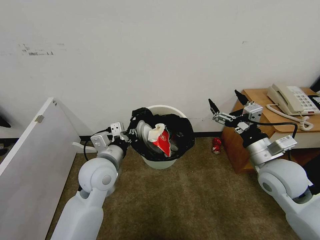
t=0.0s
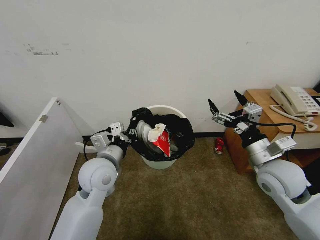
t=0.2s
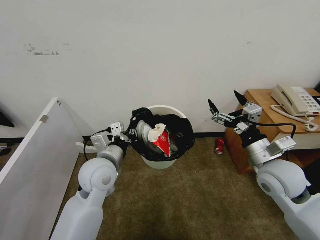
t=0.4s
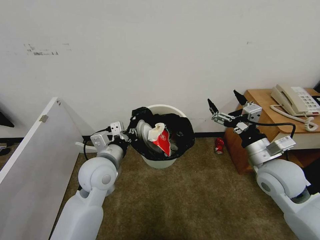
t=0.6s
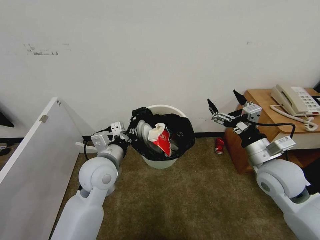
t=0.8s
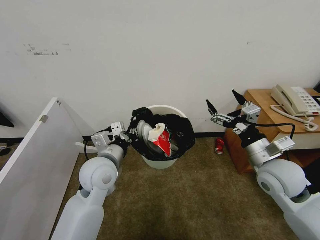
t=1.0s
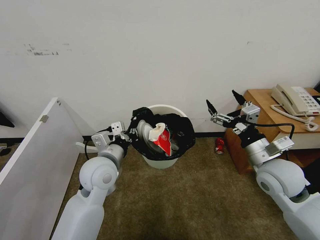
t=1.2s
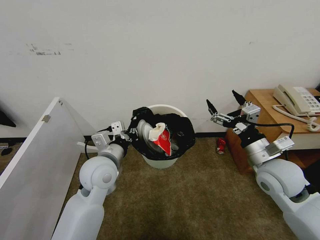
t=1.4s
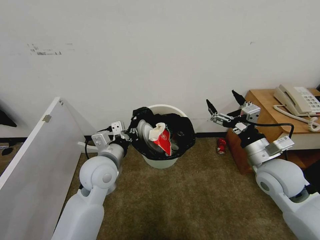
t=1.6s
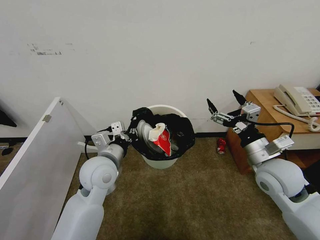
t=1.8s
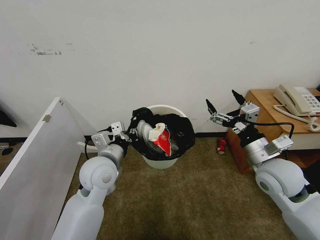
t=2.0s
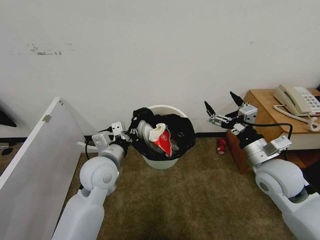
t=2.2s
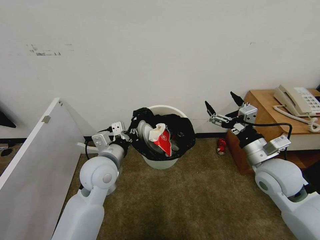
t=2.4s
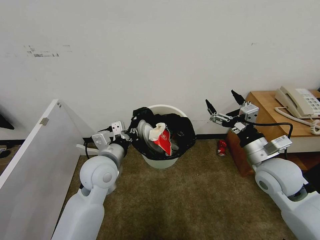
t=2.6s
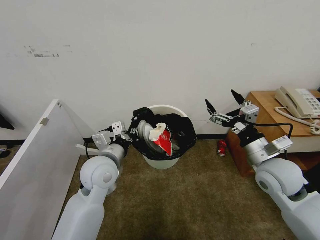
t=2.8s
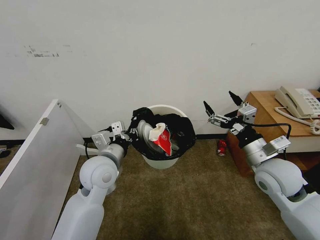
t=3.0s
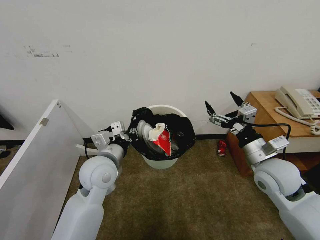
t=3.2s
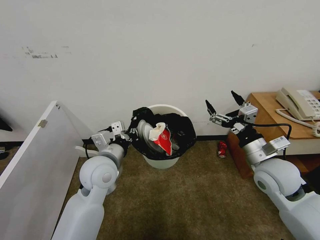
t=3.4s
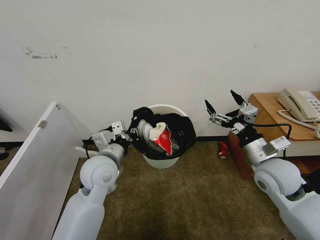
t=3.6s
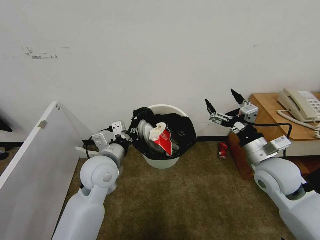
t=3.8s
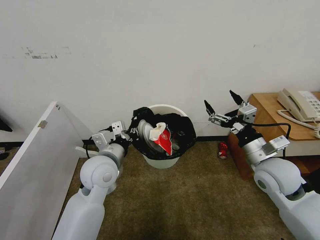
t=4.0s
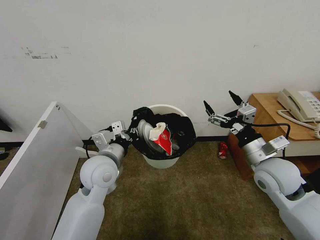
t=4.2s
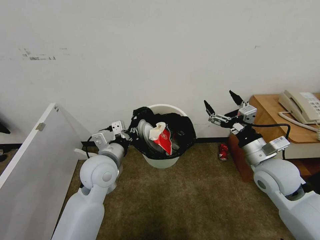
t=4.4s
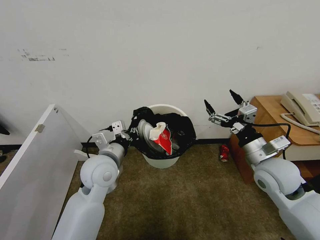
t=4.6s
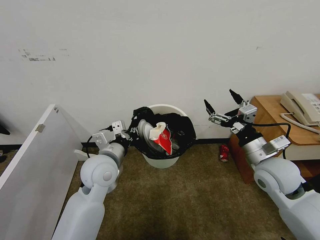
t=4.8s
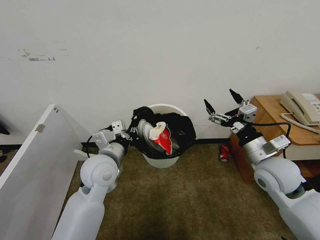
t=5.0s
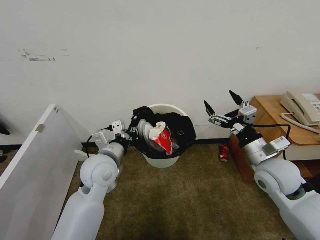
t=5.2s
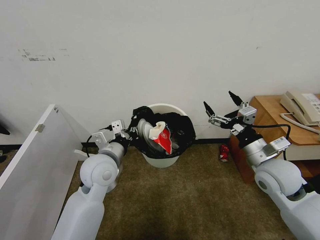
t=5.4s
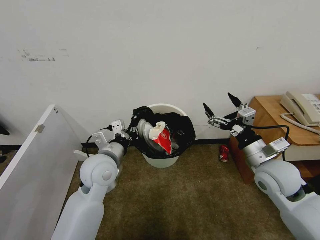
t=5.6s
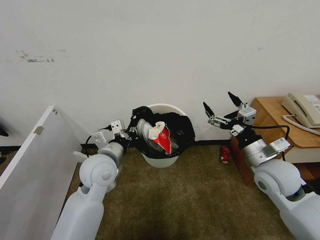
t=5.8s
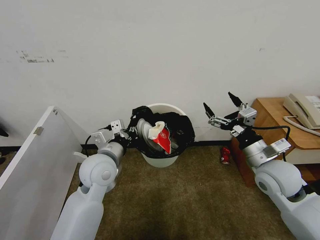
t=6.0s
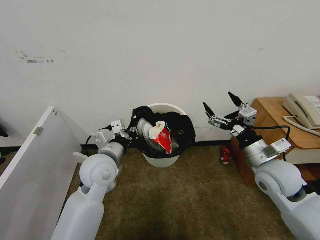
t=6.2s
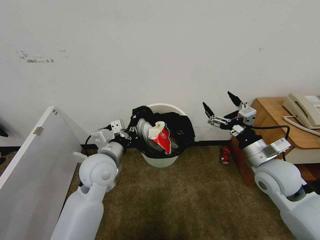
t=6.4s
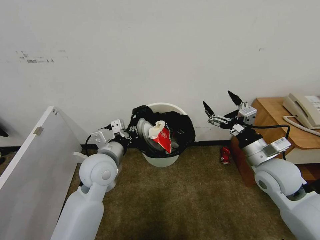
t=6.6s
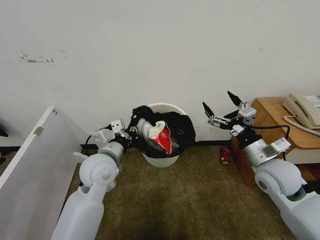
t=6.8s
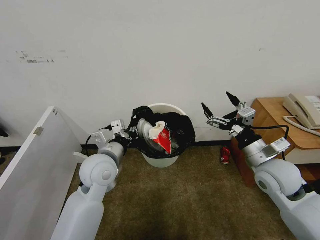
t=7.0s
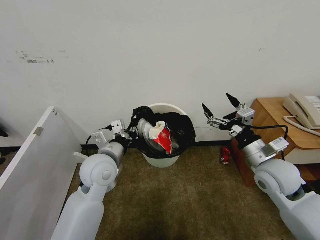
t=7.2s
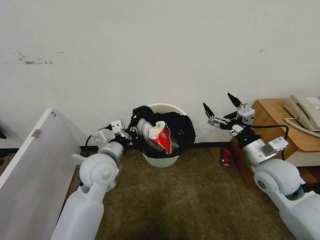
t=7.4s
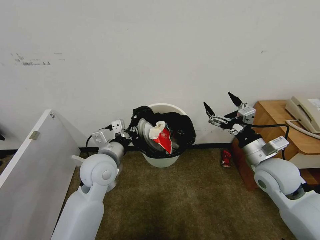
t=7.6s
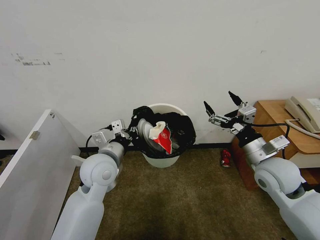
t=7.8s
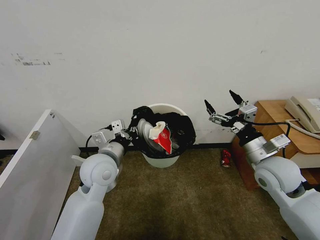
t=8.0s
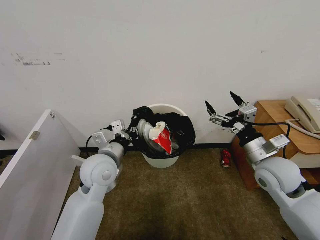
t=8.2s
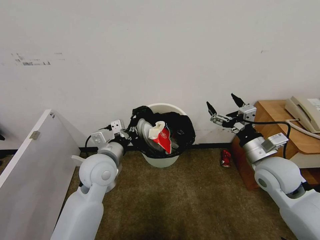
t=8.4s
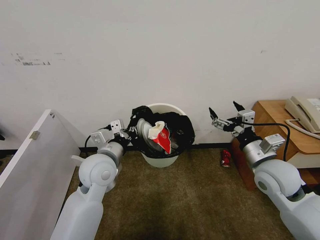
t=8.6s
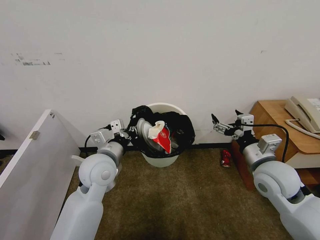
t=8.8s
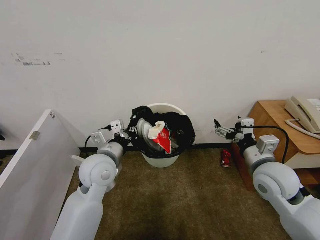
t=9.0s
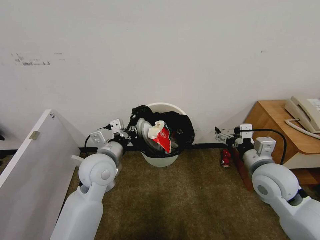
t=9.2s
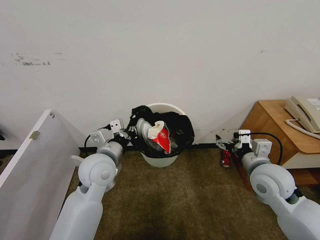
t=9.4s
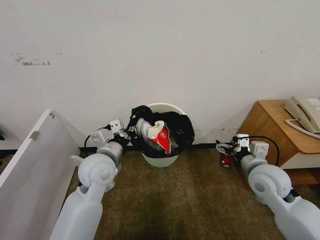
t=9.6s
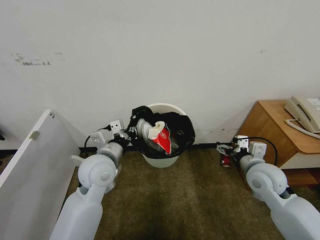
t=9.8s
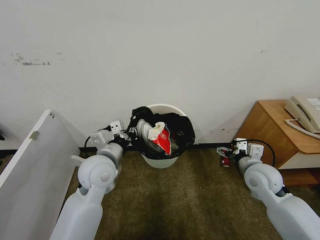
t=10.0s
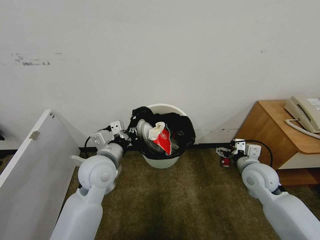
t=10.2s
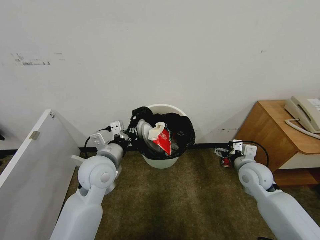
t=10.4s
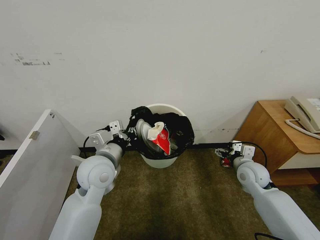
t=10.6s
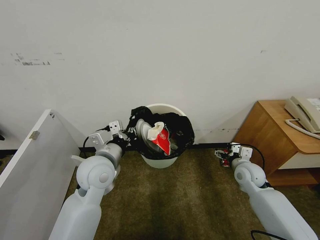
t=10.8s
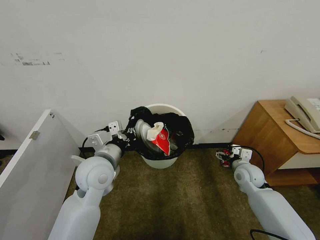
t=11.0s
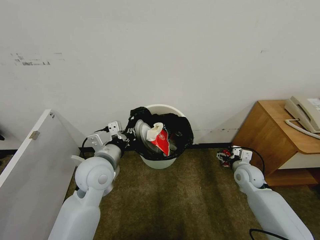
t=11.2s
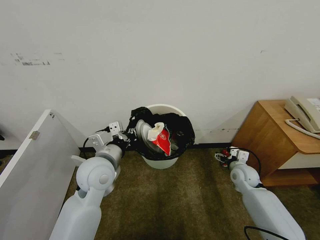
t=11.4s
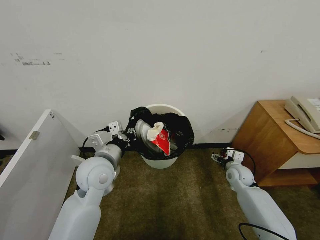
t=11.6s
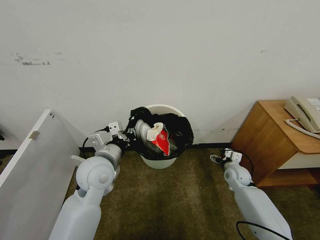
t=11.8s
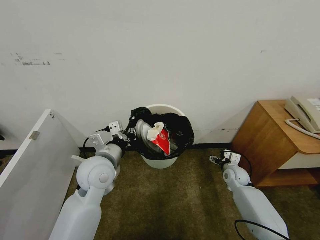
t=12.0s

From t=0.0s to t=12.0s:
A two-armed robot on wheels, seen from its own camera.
Task of the whole recording: Pick up the trash bin, then pick up the garbage from the floor and place it into the trash bin.
From t=0.0s to t=3.0s: The two grippers keep their place.
From t=3.0s to t=7.6s: Both grippers stay about where they are.
From t=9.0s to t=10.4s: The right gripper travels downward and forward by about 10 cm.
From t=10.4s to t=12.0s: The right gripper heads downward and forward, covering approximately 15 cm.

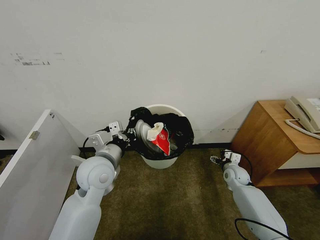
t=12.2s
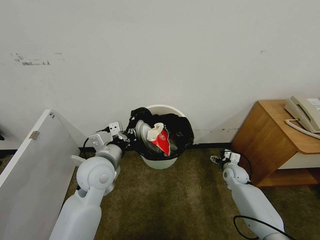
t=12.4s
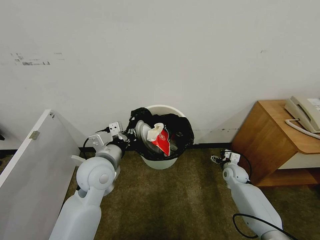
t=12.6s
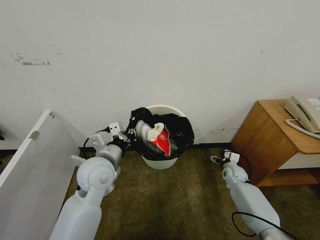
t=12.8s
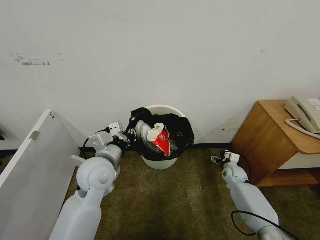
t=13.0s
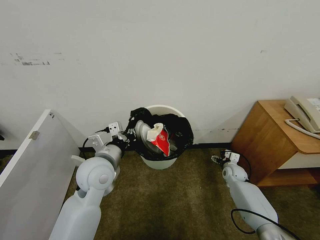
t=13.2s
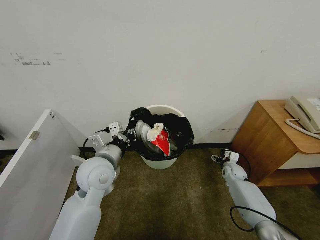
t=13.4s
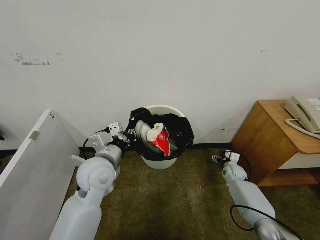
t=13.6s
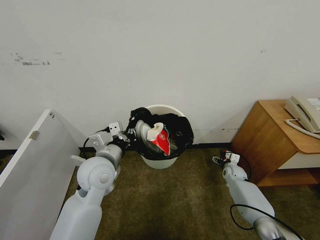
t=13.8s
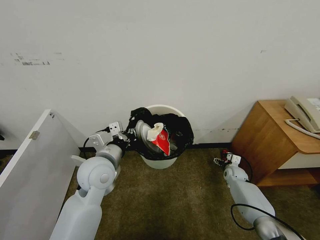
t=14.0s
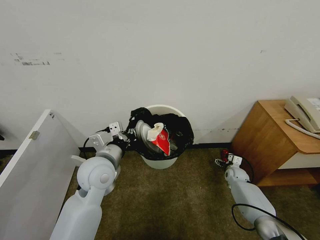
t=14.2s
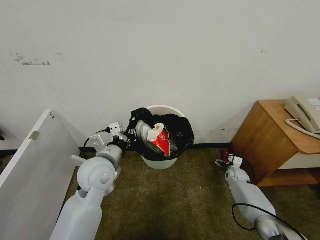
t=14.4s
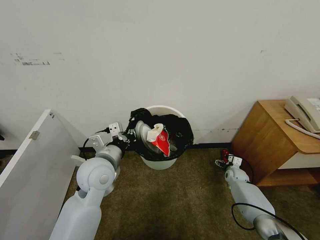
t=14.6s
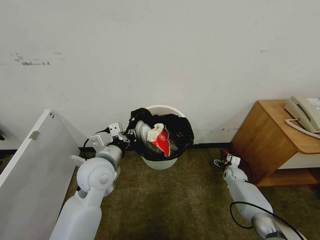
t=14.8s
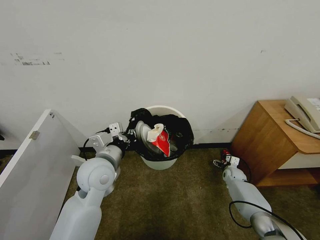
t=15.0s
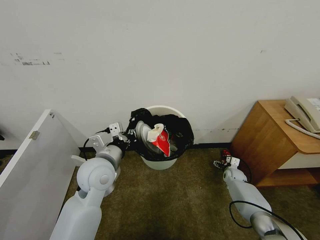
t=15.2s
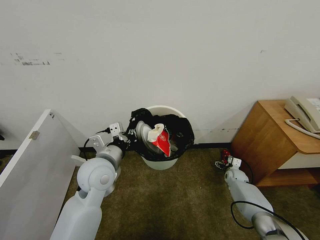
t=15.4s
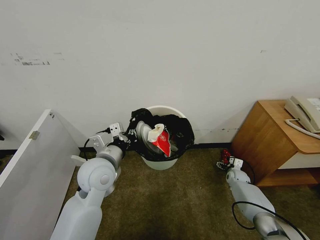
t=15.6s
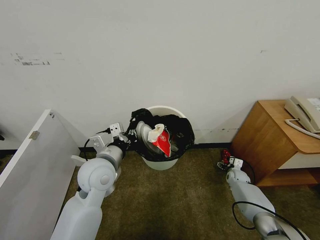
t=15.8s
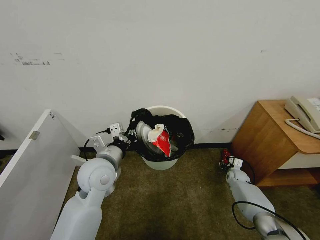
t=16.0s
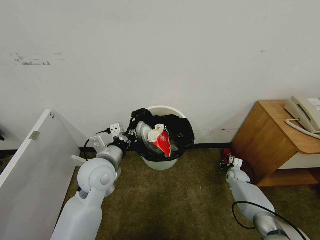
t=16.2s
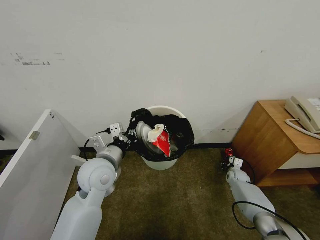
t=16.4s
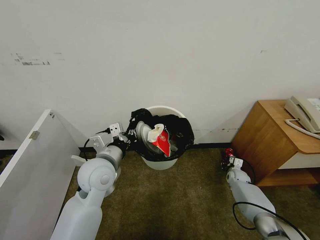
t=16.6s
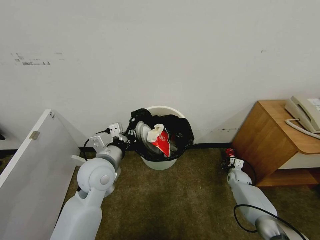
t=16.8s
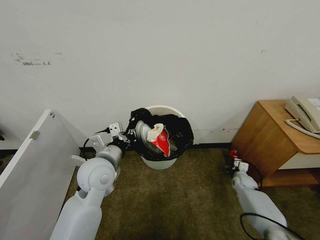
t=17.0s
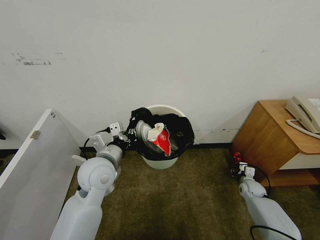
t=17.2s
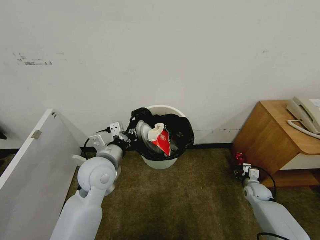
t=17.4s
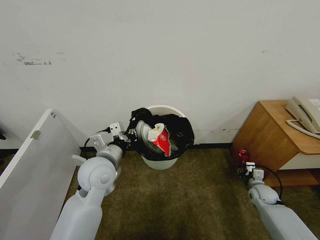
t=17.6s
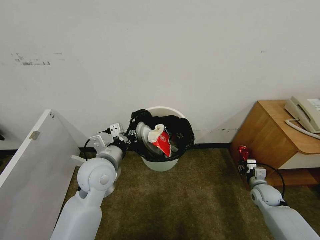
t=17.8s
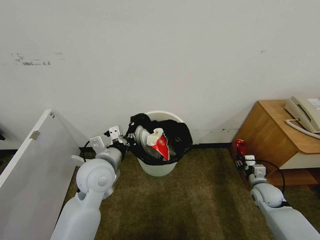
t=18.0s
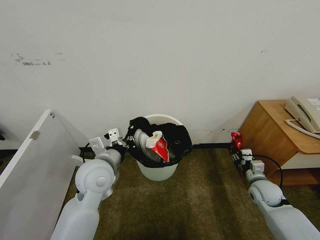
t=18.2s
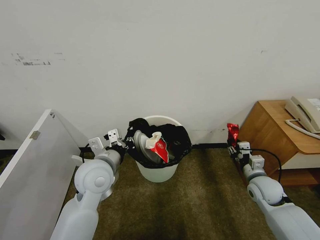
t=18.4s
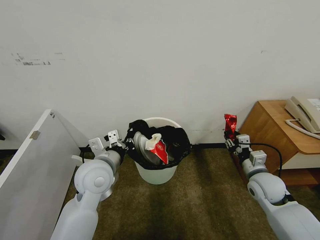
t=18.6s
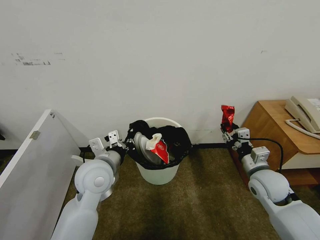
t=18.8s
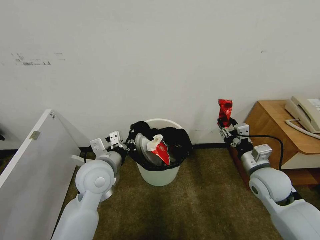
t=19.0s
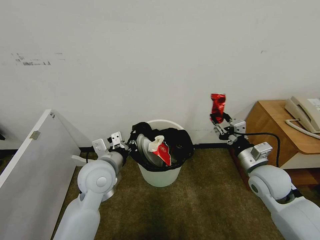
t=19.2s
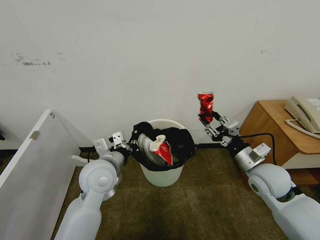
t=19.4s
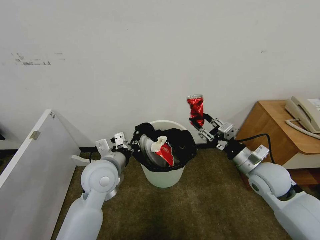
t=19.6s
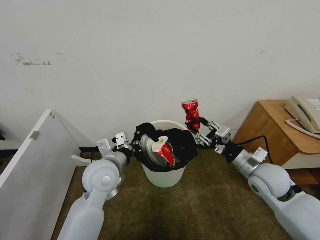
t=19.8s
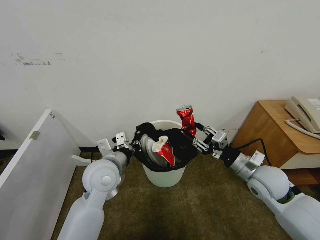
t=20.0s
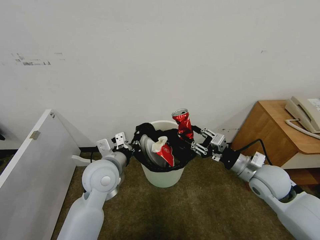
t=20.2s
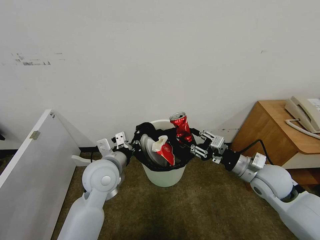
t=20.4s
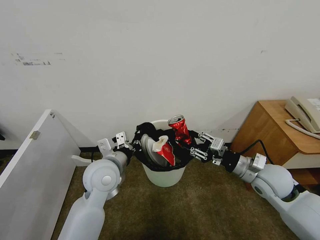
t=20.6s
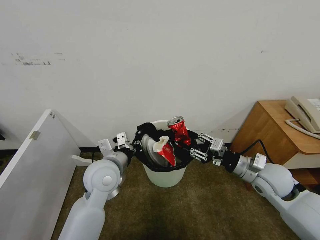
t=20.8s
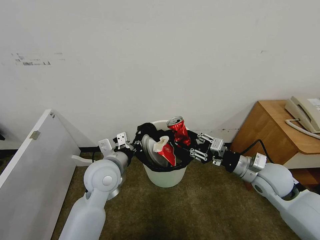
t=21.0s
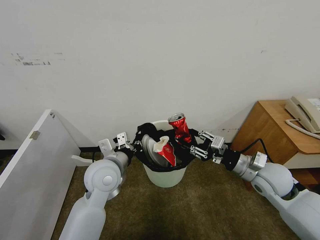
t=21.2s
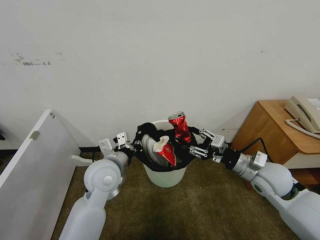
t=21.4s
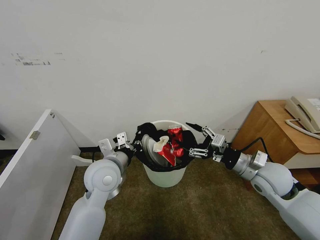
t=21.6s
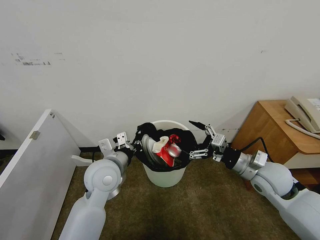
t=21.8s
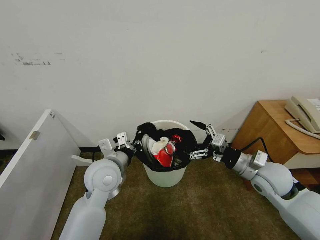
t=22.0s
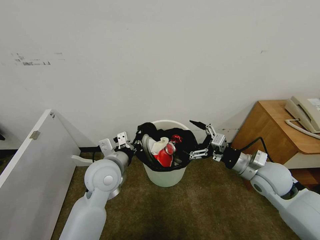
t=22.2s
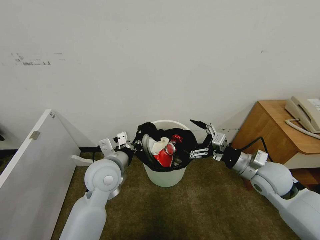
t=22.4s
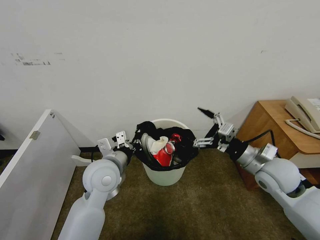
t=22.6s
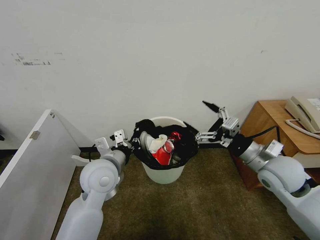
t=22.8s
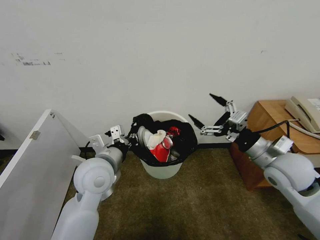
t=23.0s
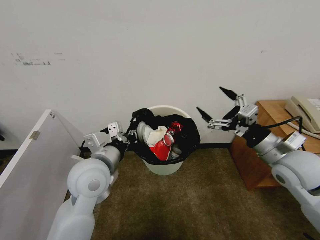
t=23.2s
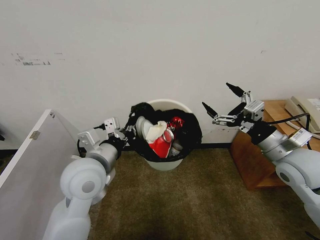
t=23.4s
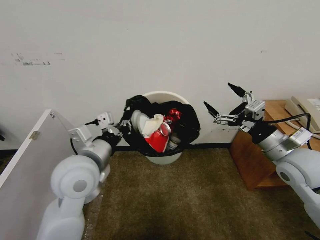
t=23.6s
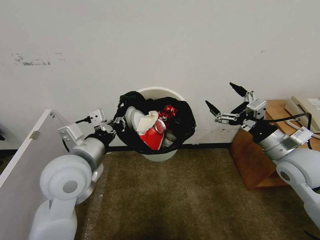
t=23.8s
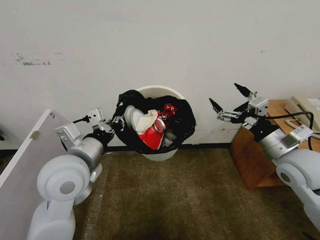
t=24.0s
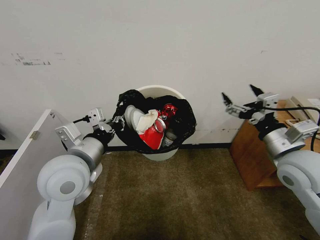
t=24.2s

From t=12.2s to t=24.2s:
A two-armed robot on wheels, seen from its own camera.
Task of the whole recording: Pick up the trash bin, then pick up the garbage from the floor and place it into the trash bin.
From t=12.2s to t=13.8s: The right gripper changes place by approximately 5 cm.
From t=13.8s to t=15.2s: The grippers make only small movements.
From t=15.2s to t=16.6s: The right gripper closes.
From t=16.6s to t=18.2s: The right gripper travels upward and backward by about 20 cm.
From t=18.2s to t=19.8s: The right gripper is displaced upward and to the left by some 15 cm.
From t=19.8s to t=21.2s: The grippers stay close to where they were, moving slightly.
From t=21.2s to t=22.6s: The right gripper opens up.
From t=22.6s to t=24.2s: Both grippers move upward, approximately 10 cm.
